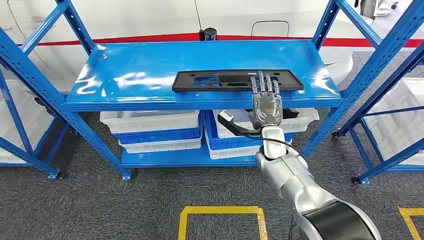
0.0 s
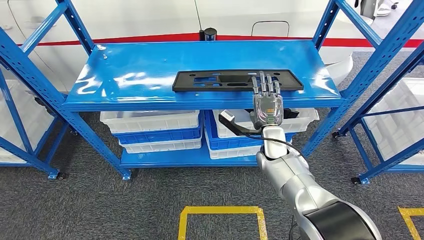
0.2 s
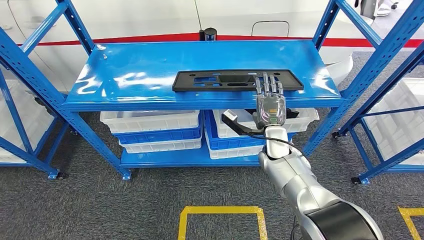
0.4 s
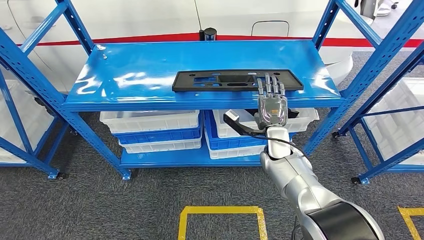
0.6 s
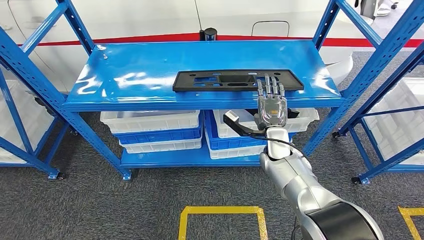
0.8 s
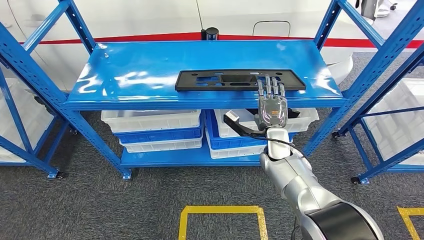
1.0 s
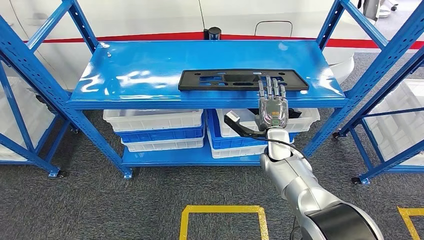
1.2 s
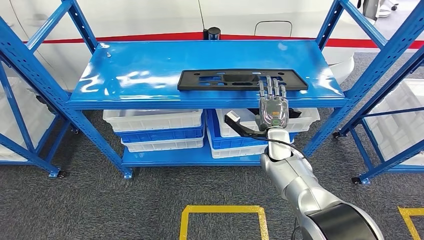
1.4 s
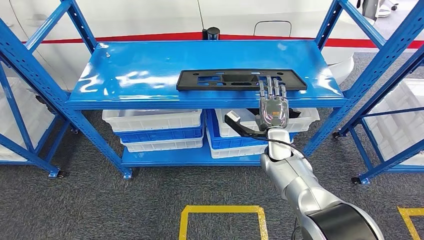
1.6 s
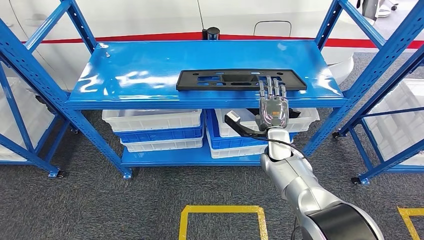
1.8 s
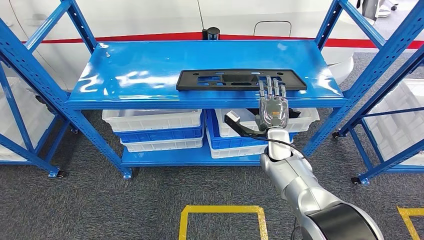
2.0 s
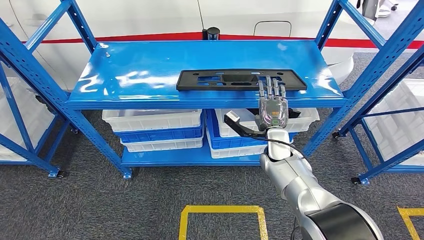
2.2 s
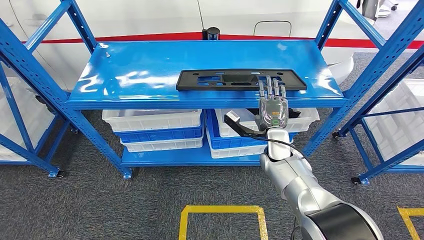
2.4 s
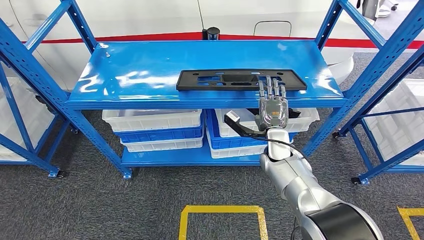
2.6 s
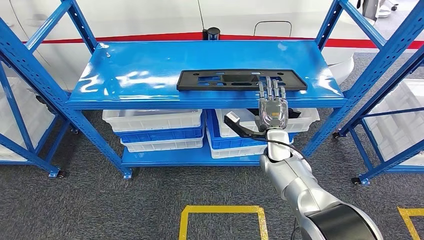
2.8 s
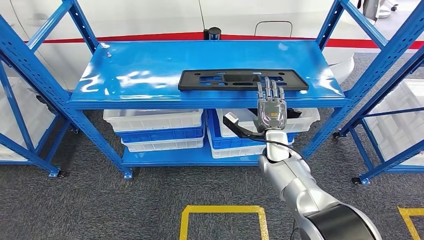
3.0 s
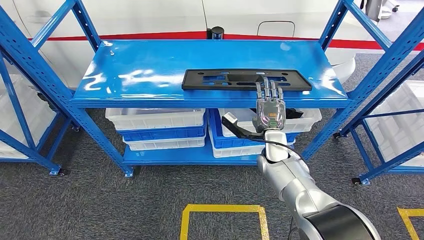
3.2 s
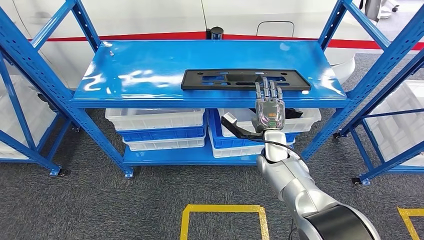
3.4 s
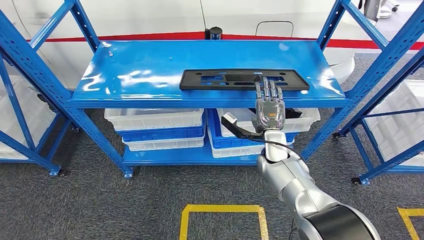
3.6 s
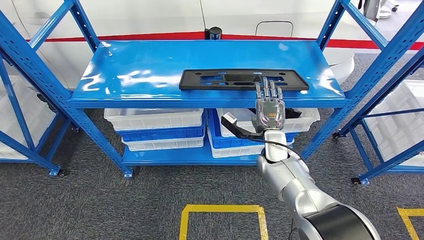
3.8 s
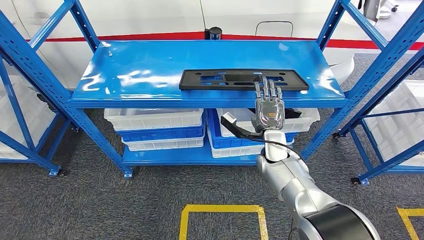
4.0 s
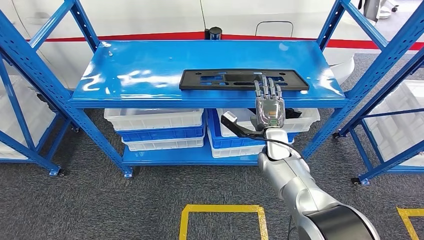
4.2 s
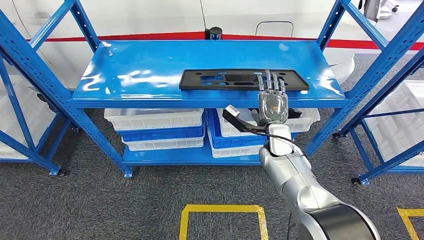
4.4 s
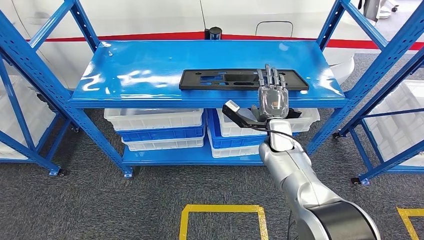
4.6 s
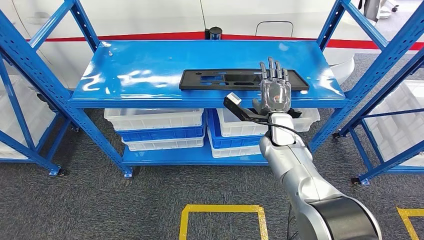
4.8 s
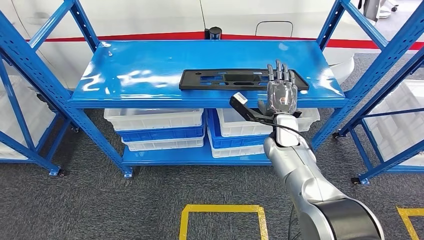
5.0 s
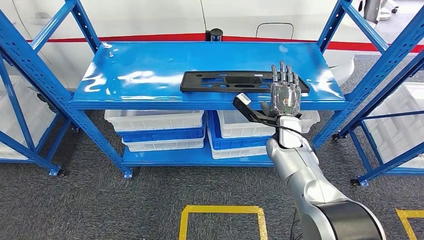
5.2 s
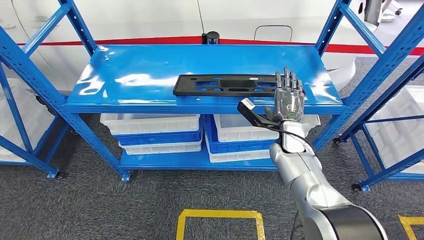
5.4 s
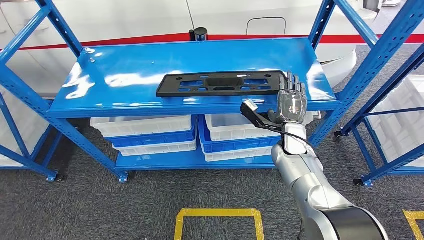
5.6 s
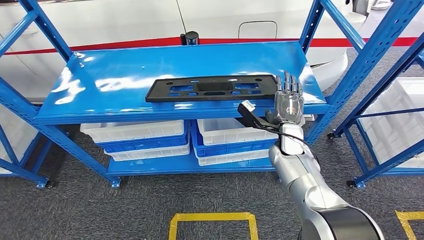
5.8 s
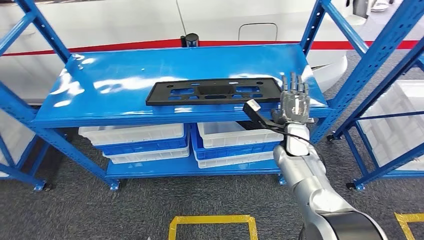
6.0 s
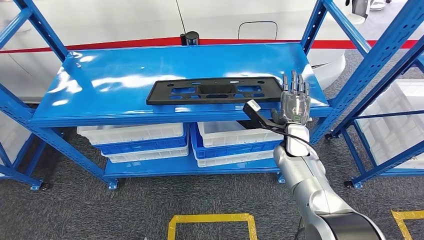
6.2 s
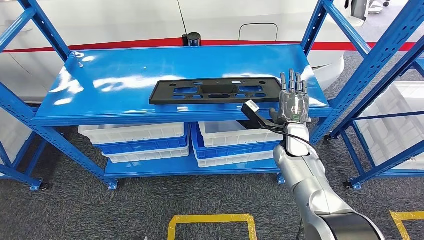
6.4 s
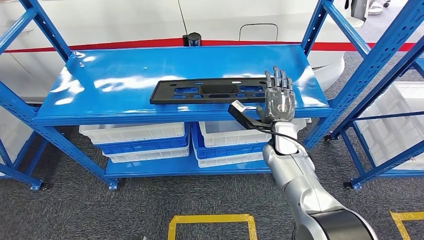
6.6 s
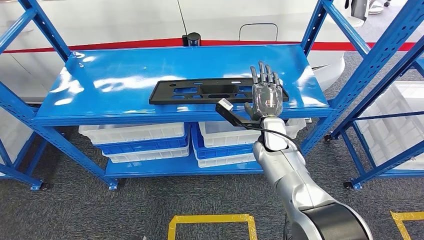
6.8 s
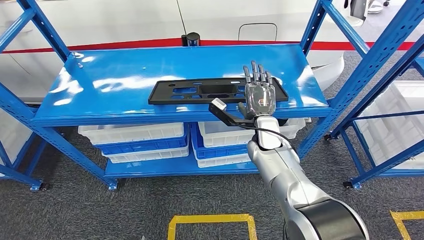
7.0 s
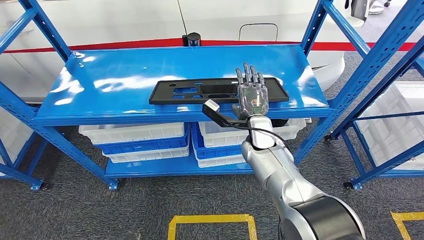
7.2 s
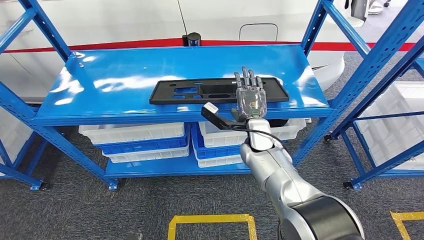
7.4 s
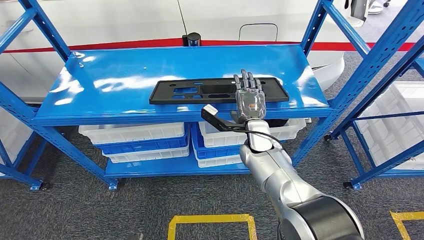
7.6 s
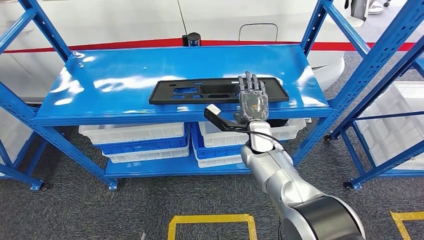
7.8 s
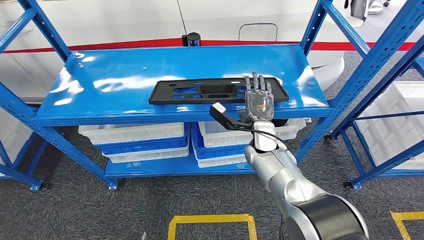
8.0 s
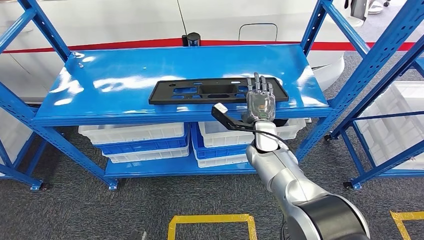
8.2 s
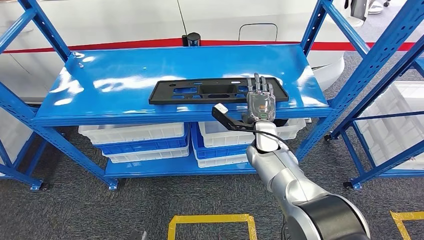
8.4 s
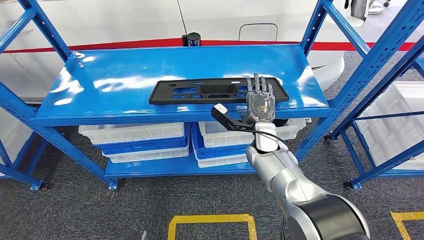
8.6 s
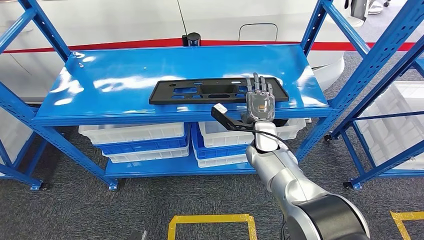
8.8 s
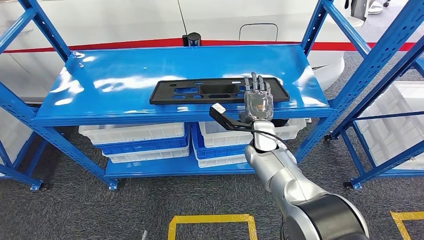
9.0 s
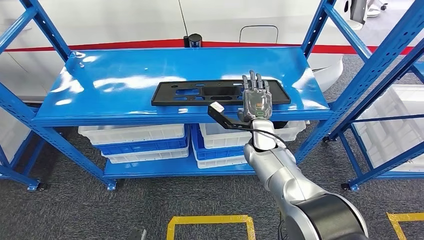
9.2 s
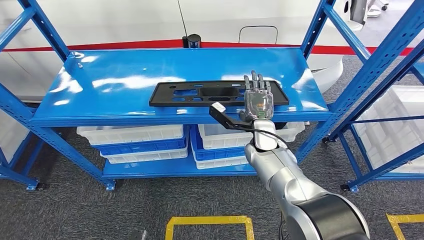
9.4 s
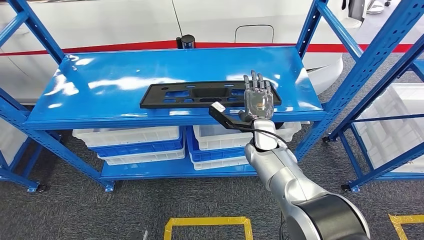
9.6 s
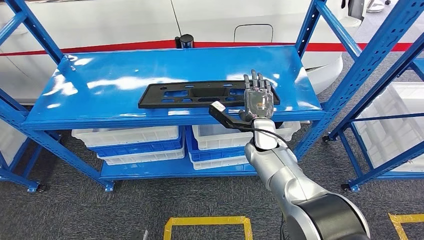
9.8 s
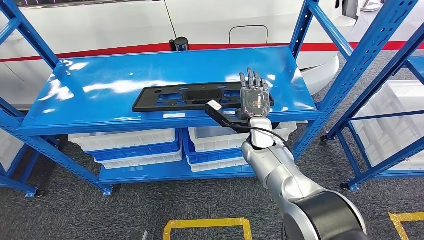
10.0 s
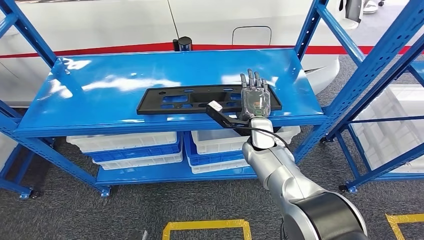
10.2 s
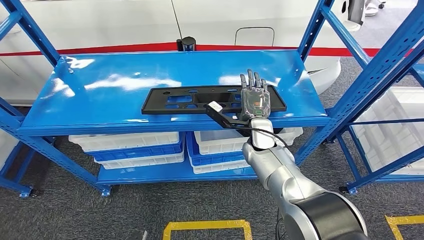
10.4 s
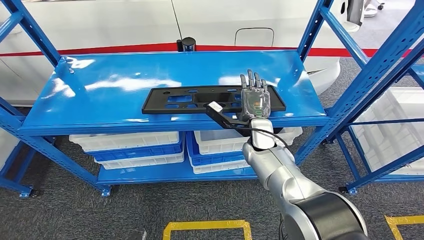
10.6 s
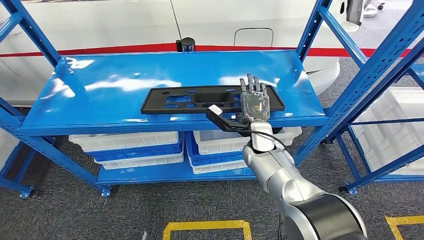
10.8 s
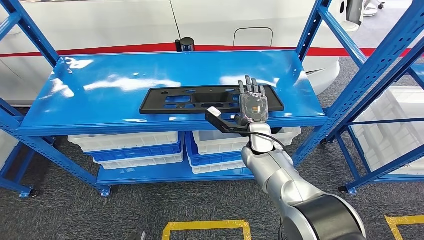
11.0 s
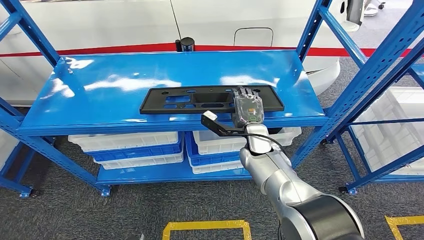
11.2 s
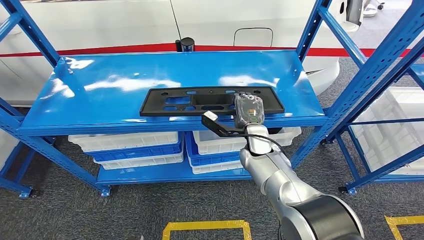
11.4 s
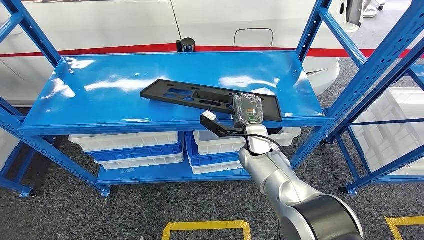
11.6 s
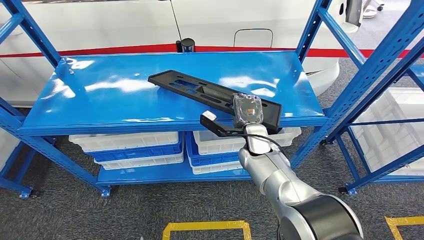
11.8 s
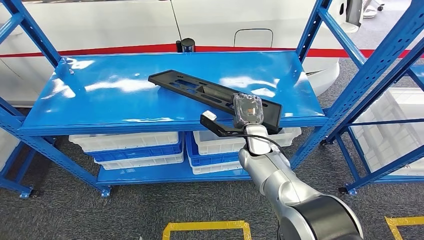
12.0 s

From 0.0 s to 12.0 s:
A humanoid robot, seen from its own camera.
From 1.6 s to 3.0 s: Neither hand changes place.
From 3.0 s to 4.4 s: The hands make only small movements.
From 7.6 s to 9.0 s: There are only small adjustments of the hands.
From 10.4 s to 12.0 s: There are only small adjustments of the hands.

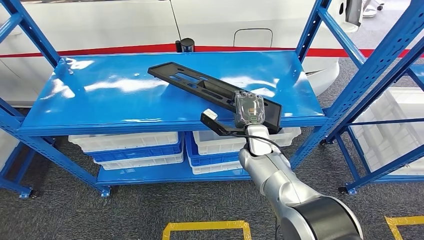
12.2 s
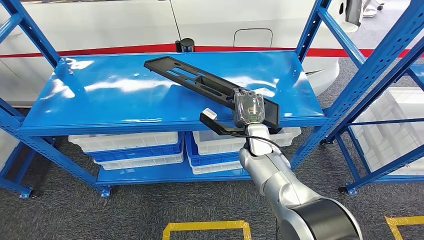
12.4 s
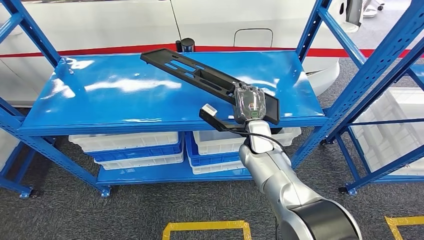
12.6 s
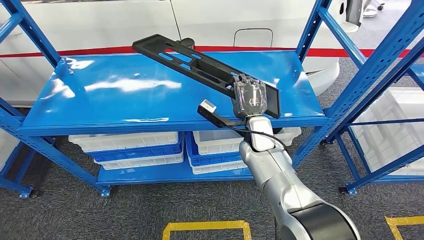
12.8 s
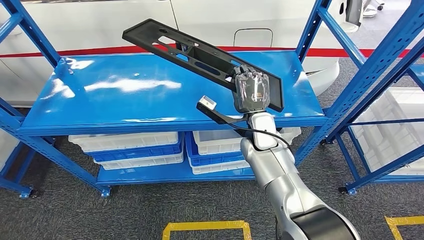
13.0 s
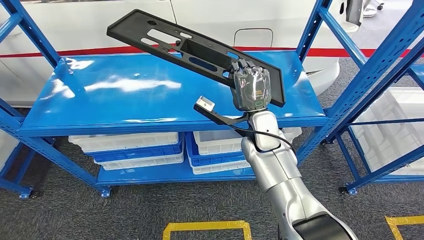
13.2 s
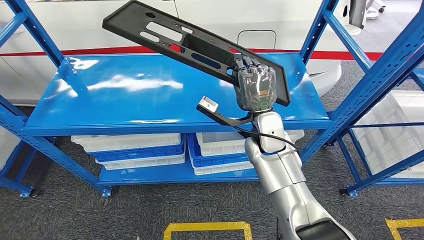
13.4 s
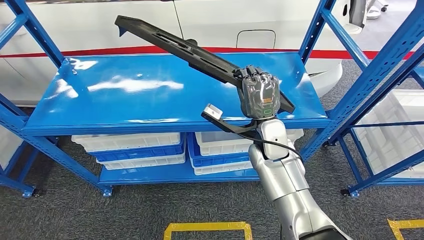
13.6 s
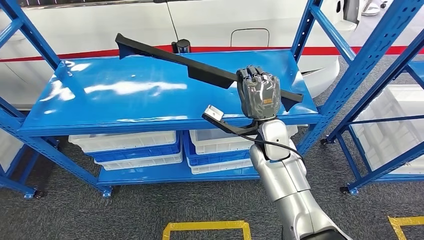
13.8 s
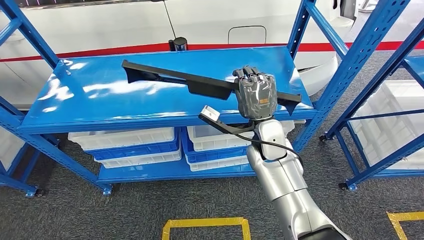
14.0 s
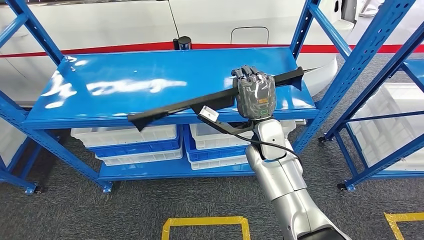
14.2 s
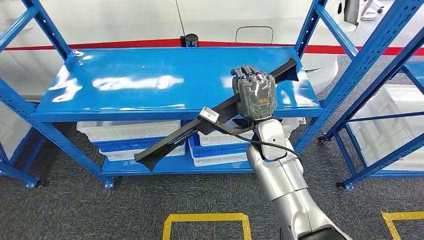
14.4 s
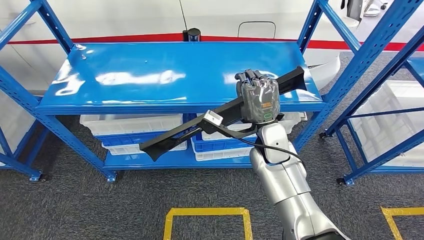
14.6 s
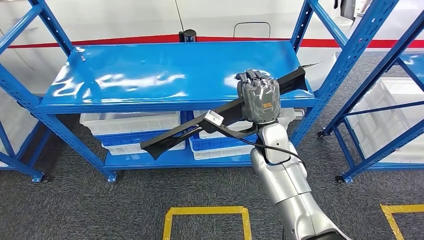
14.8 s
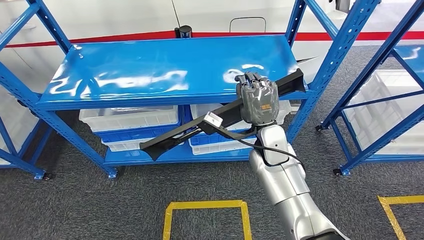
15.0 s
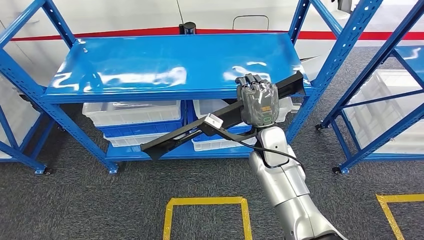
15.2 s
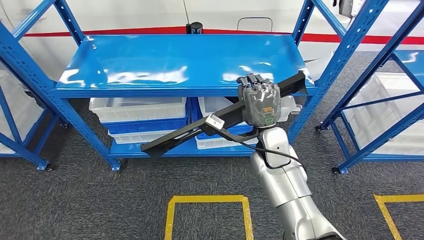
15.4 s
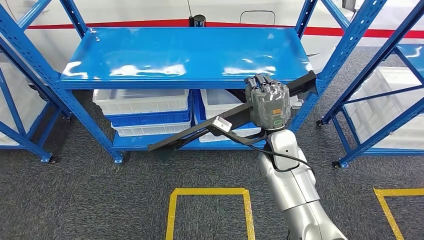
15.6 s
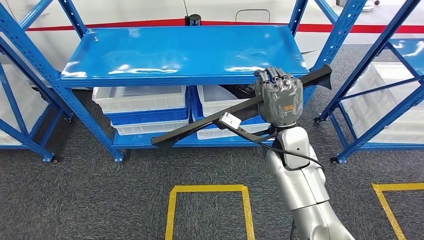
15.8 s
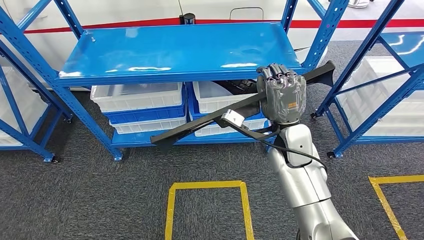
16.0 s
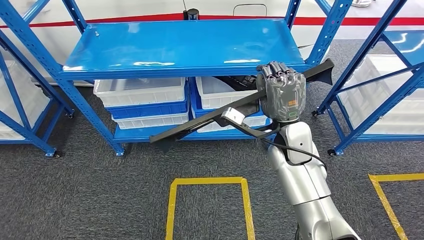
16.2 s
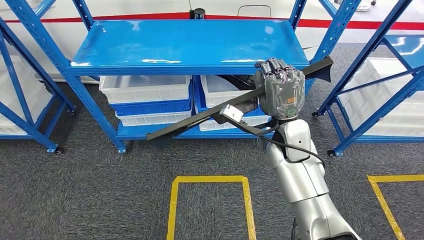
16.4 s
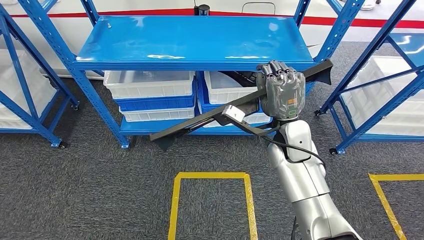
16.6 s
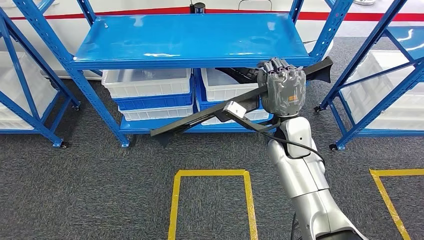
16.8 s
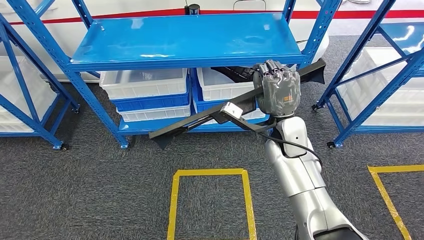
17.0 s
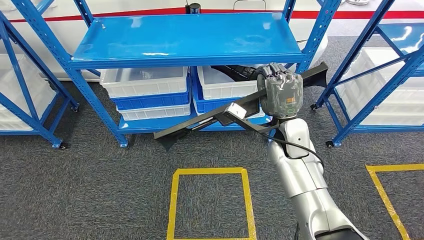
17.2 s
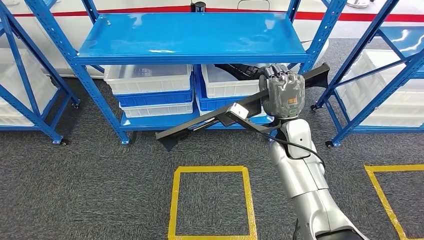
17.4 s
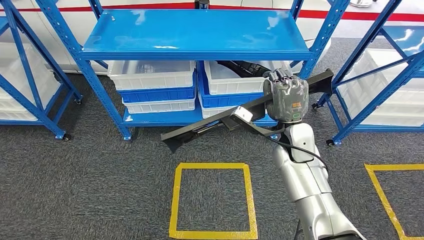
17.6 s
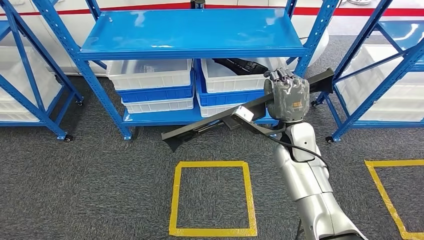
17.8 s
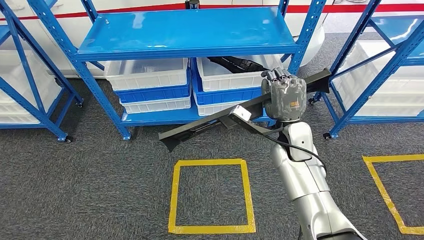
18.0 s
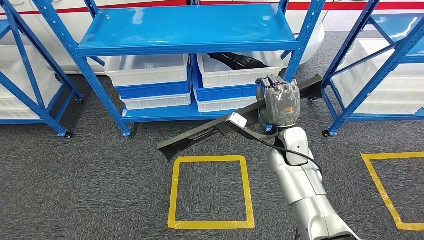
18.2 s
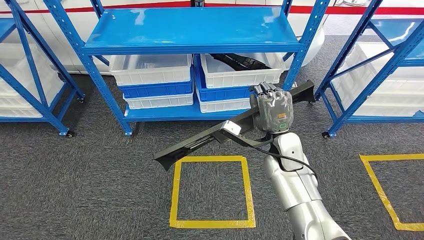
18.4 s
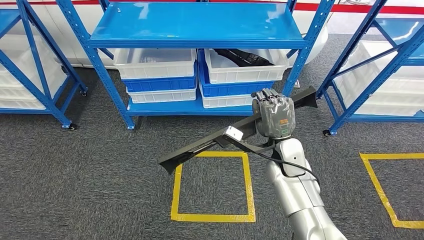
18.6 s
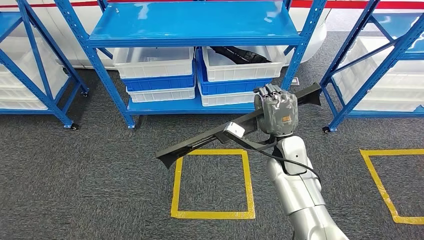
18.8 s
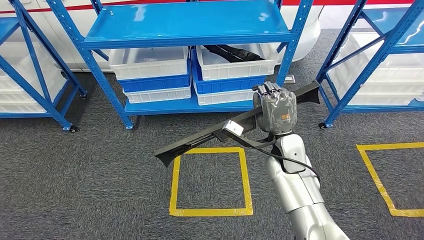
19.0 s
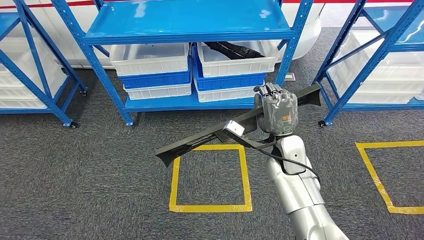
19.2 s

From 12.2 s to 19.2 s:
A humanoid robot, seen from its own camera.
Step, from 12.2 s to 15.6 s: Pick up the large material from the shelf.
